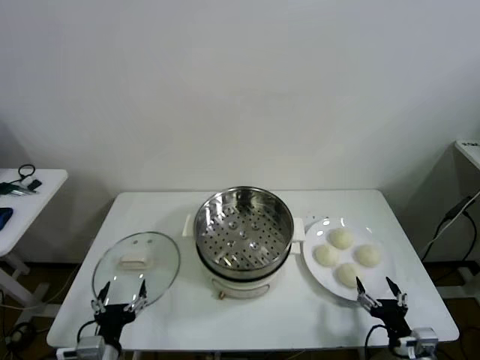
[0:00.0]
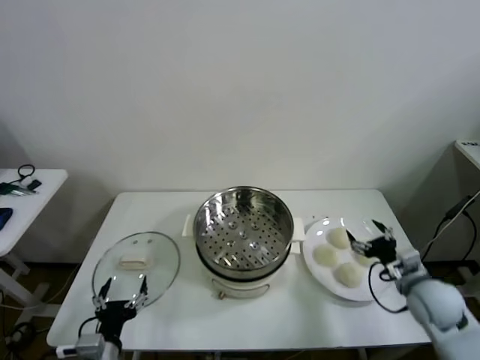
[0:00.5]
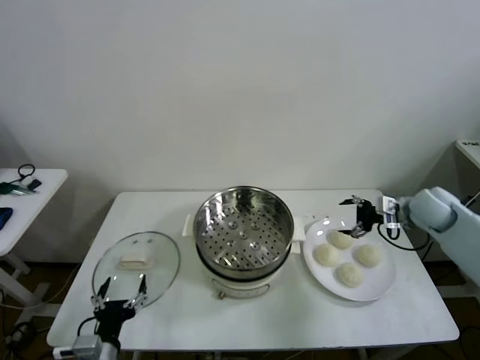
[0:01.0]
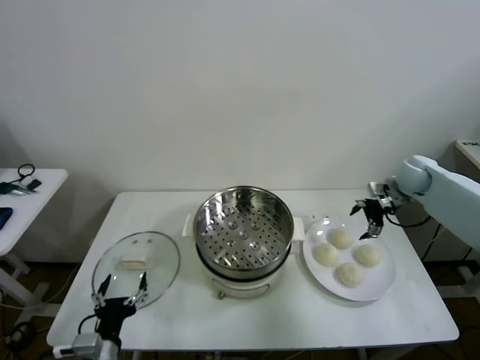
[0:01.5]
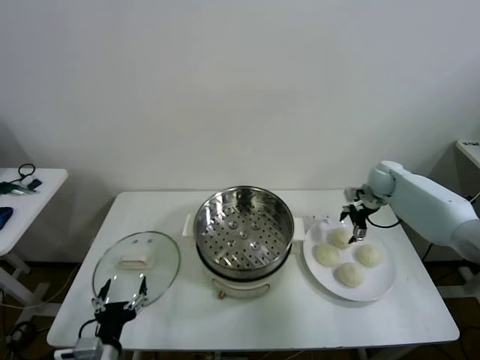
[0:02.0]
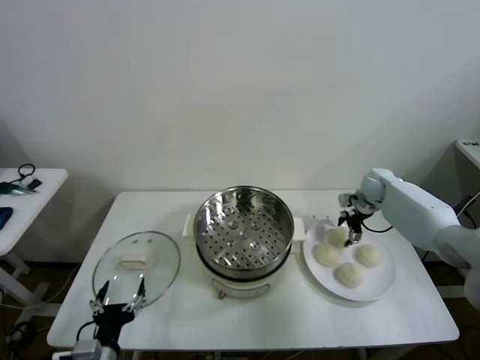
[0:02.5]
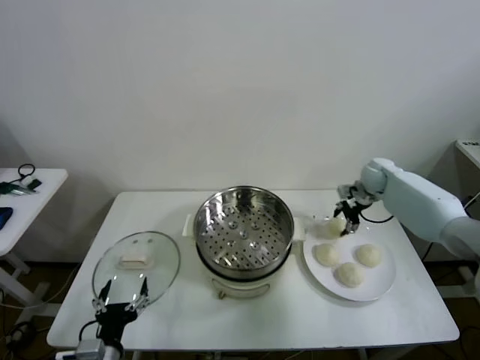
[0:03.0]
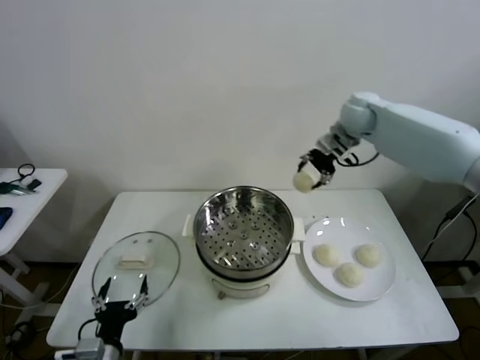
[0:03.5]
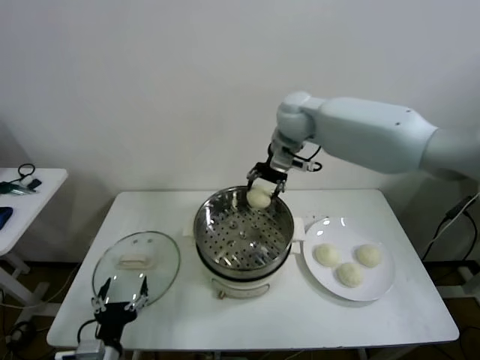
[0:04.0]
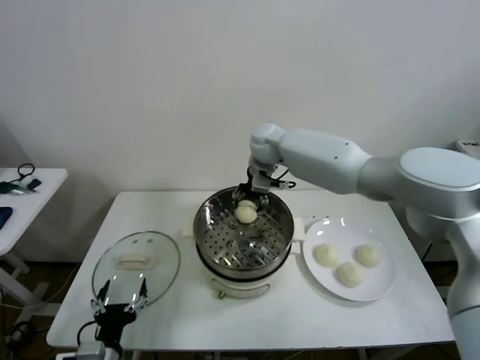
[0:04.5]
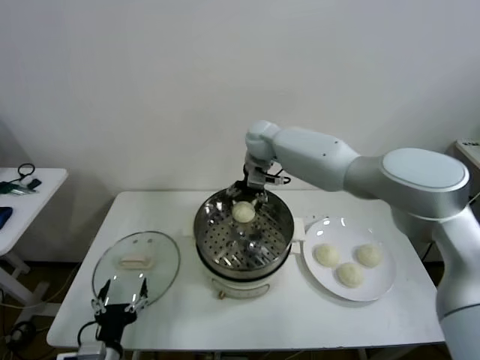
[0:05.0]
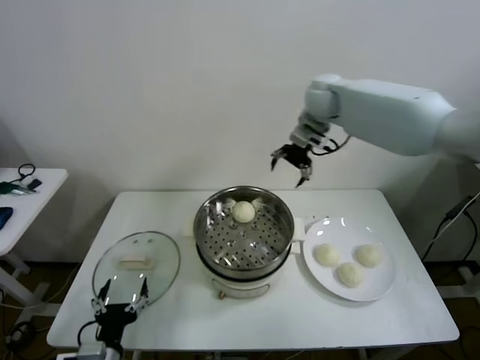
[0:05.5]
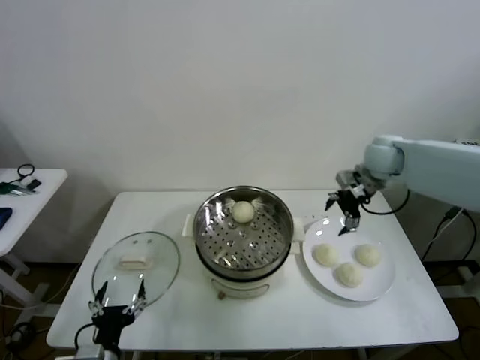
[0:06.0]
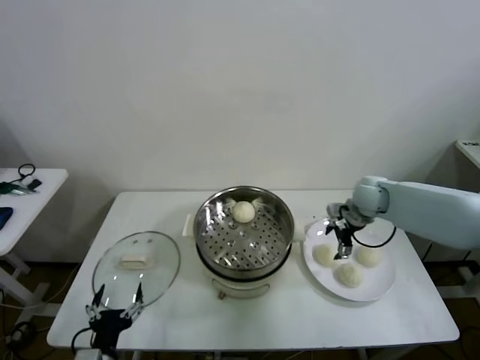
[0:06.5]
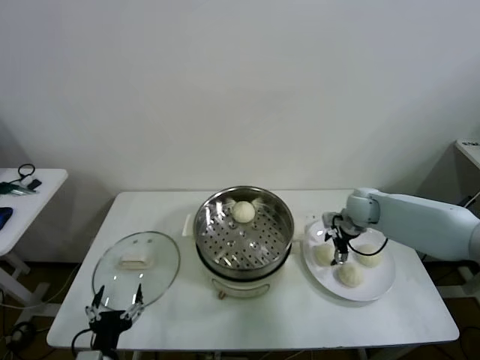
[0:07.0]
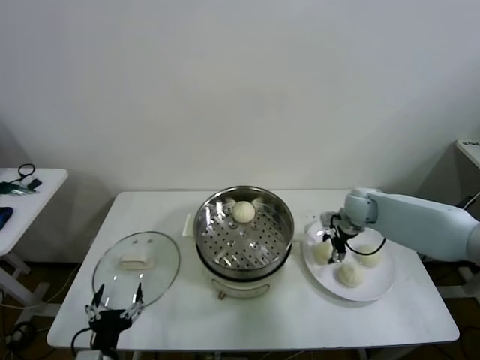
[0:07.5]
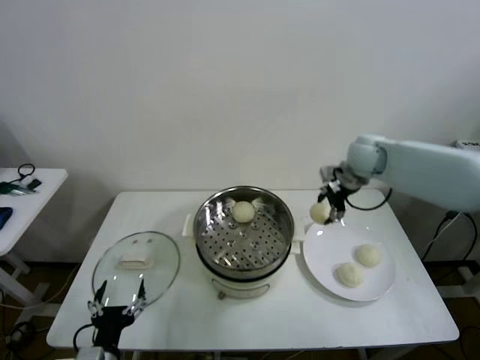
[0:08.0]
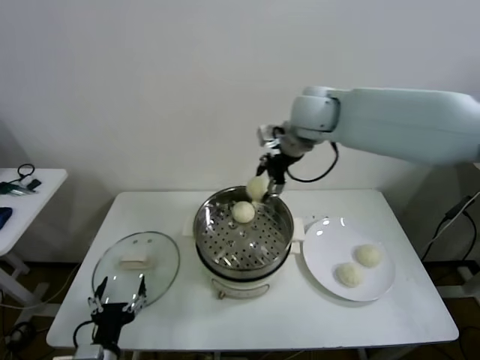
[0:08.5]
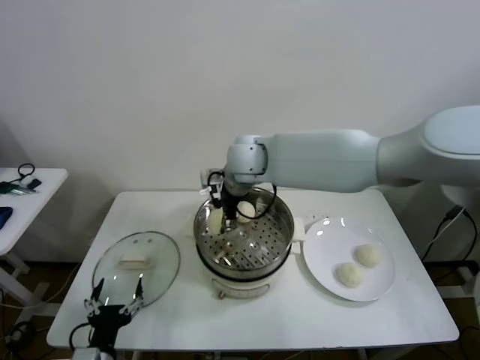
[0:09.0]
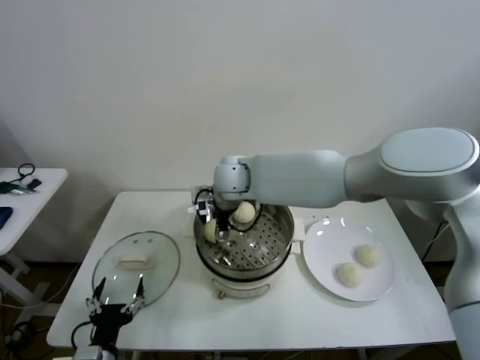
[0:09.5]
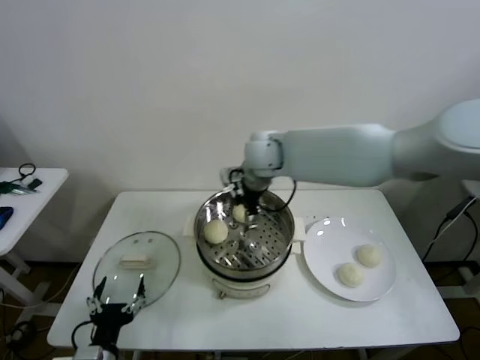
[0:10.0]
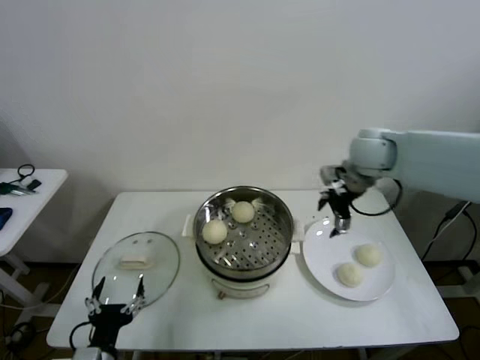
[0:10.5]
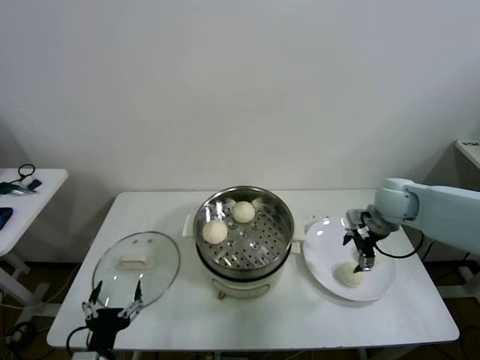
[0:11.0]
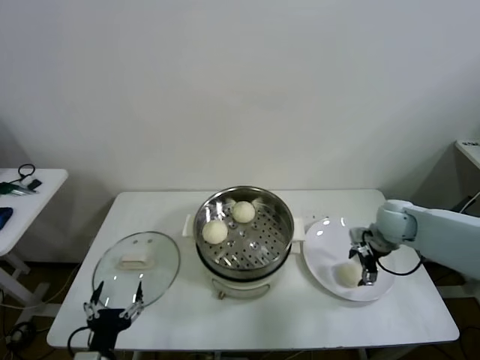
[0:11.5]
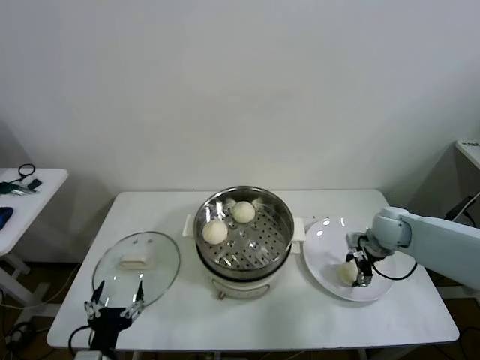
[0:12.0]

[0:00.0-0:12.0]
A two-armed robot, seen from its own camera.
Task of the whole recording: take steamed baozi put them in steamer then cover it.
Step, 0:00.0 to 0:02.5: Grasp the baozi in the plate with right gripper.
Step, 0:03.0 to 0:05.0: Place the baozi on the steamer with right gripper.
Step, 0:05.5 to 0:07.0: Grasp the baozi in the plate with right gripper.
Step, 0:07.5 to 0:09.5: Place the baozi on the steamer with right gripper.
0:02.0 to 0:04.0: The right gripper travels to the left and upward by approximately 35 cm, and closes.
0:04.0 to 0:06.0: The right gripper goes about 25 cm to the right, and opens its fingers.
0:06.0 to 0:08.0: The right gripper is displaced to the left by roughly 5 cm, goes downward and returns, about 15 cm each way, and closes.
0:08.0 to 0:10.0: The right gripper heads to the left, covering roughly 20 cm, and opens up.
0:10.0 to 0:12.0: The right gripper travels to the right and downward by some 35 cm, and closes its fingers.

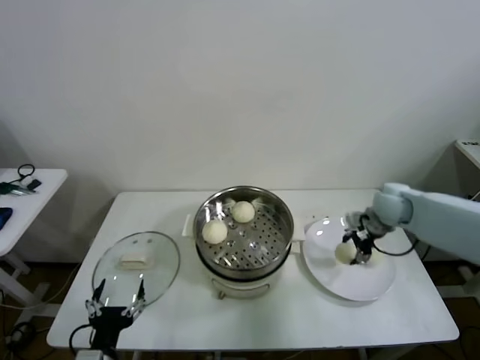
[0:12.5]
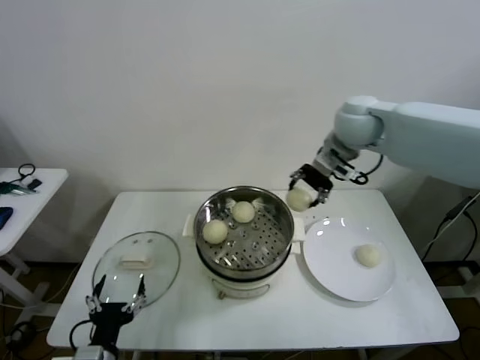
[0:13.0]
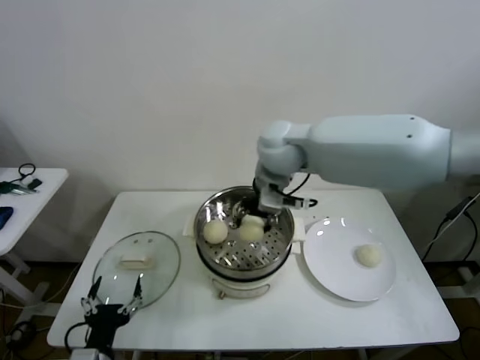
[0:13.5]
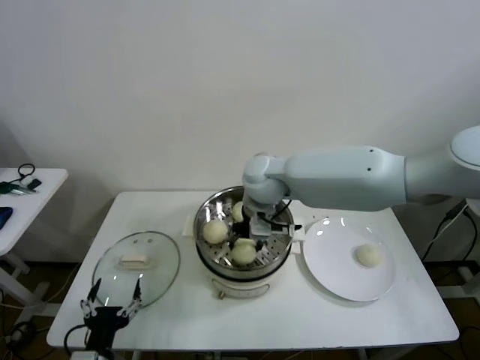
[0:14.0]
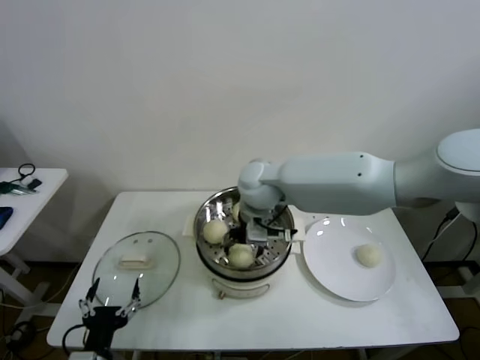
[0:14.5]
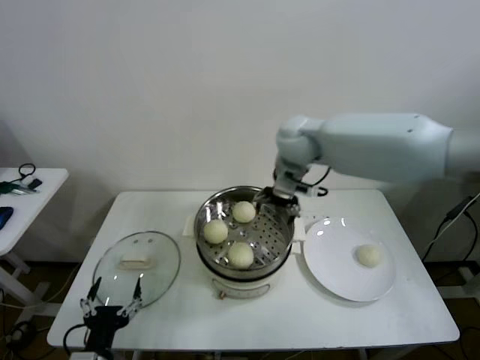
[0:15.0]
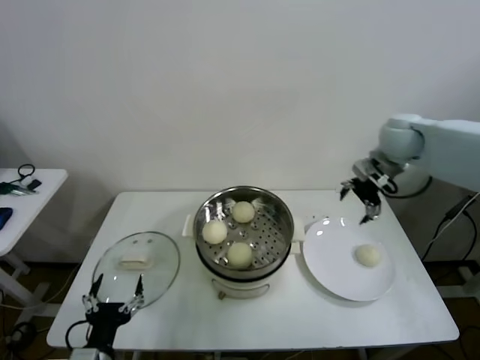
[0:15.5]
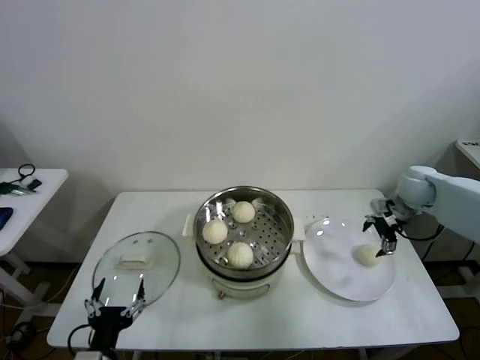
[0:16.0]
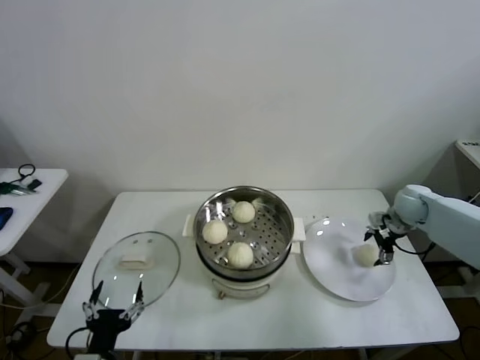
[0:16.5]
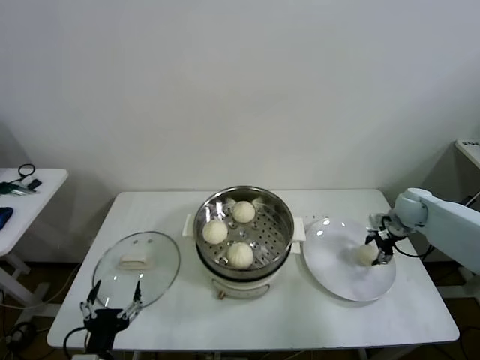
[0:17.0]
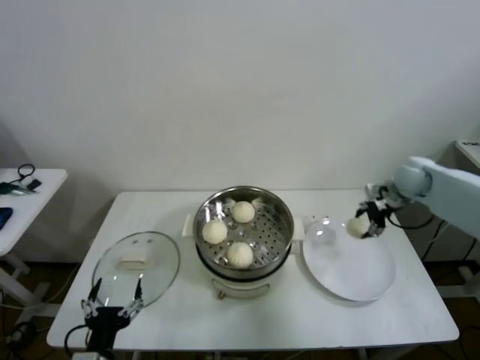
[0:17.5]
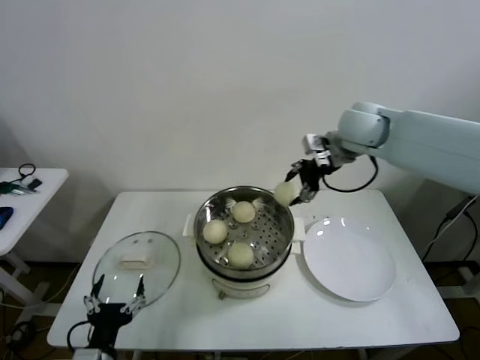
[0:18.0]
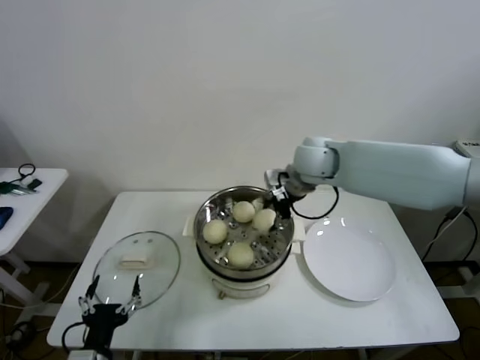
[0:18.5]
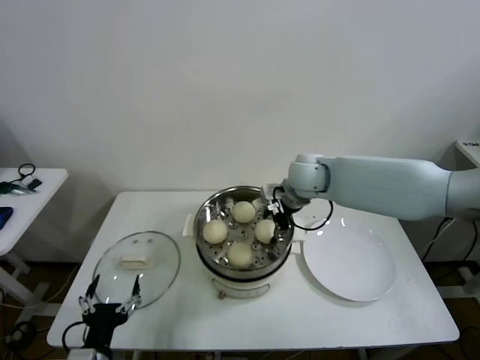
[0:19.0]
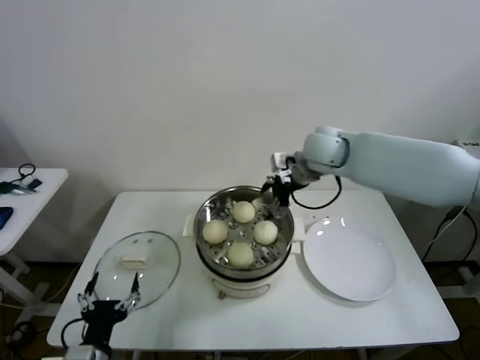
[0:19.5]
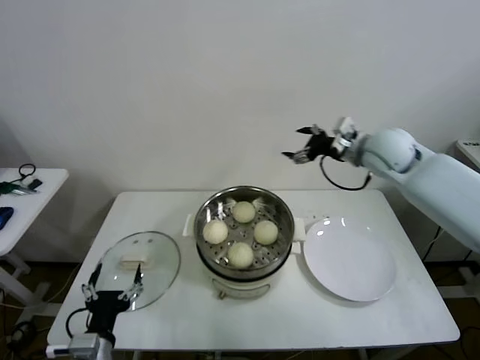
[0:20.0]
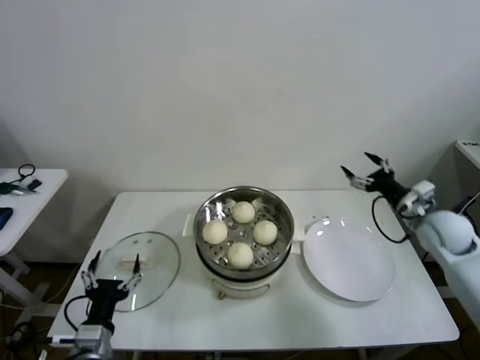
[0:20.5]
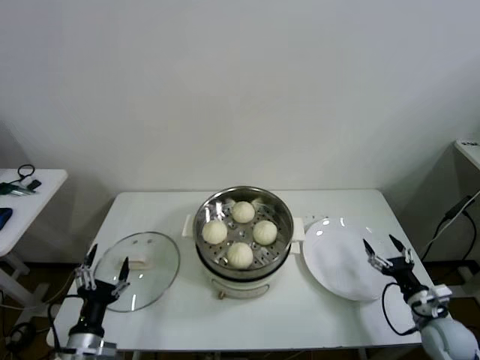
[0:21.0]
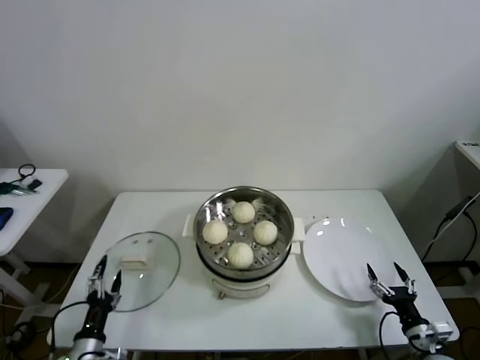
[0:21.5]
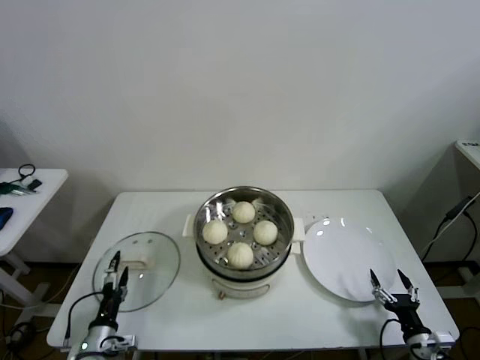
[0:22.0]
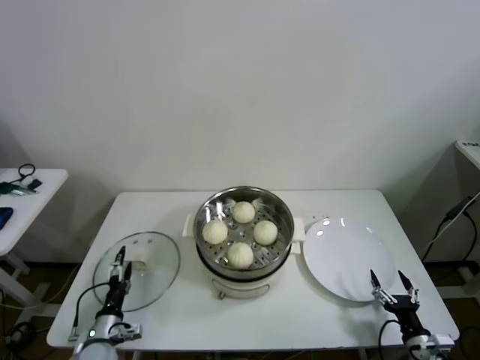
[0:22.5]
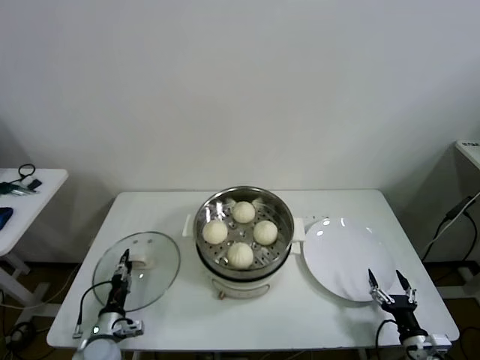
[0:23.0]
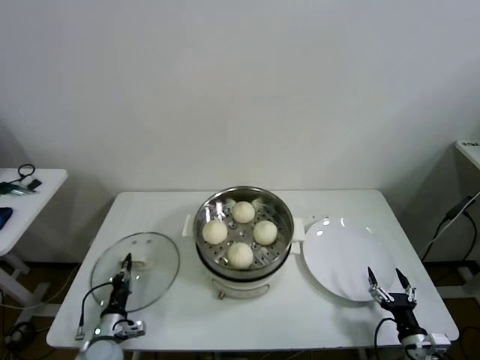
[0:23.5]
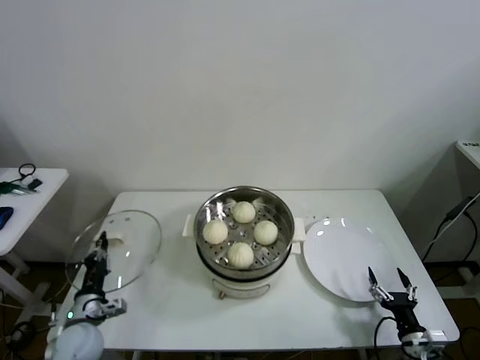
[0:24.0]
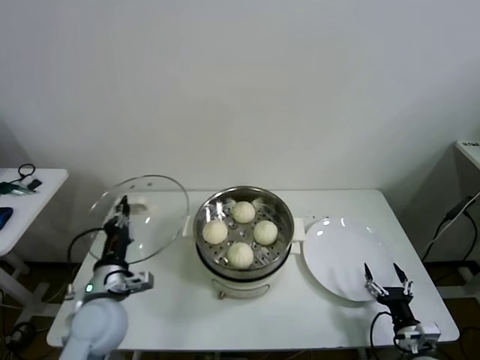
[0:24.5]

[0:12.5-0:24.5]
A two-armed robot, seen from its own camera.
Task of the whole recording: take steamed baozi put them in steamer then cover it.
Step, 0:12.5 to 0:14.5: Place the baozi on the steamer with right gripper.
Step, 0:15.0 to 0:17.0: Grasp the baozi in the plate with right gripper.
Step, 0:17.5 to 0:19.0: Place the baozi on the steamer with right gripper.
Step, 0:19.5 to 0:23.5: Grasp the pot lid with left gripper.
0:12.5 to 0:14.5: The right gripper travels to the left by roughly 30 cm, and opens its fingers.
0:14.5 to 0:16.5: The right gripper moves to the right, roughly 40 cm.
0:16.5 to 0:18.5: The right gripper goes roughly 35 cm to the left and upward, and closes up.
0:18.5 to 0:20.5: The right gripper travels to the right and downward by about 30 cm, and opens.
0:20.5 to 0:22.5: The left gripper moves downward, forward and to the left, roughly 20 cm. Meanwhile the right gripper moves backward and downward, about 35 cm.
0:22.5 to 0:24.5: The left gripper is displaced upward by about 20 cm, and closes up.

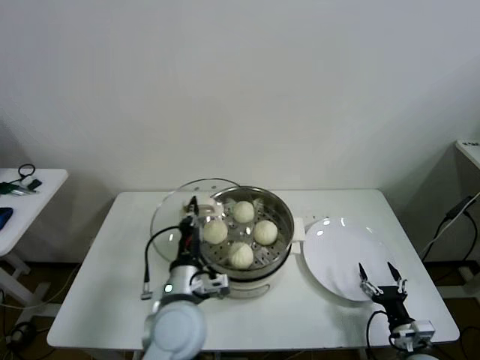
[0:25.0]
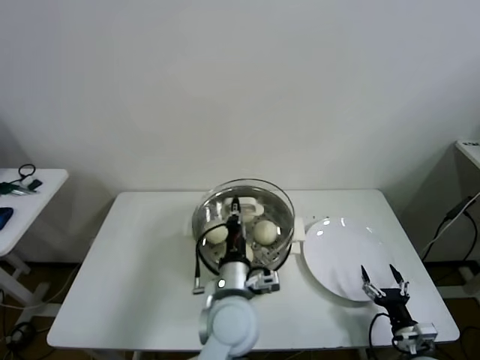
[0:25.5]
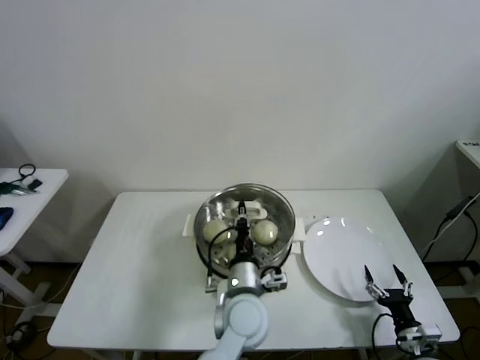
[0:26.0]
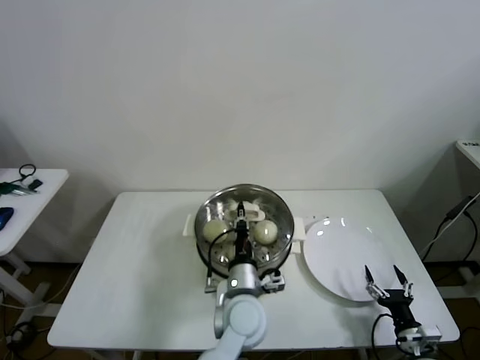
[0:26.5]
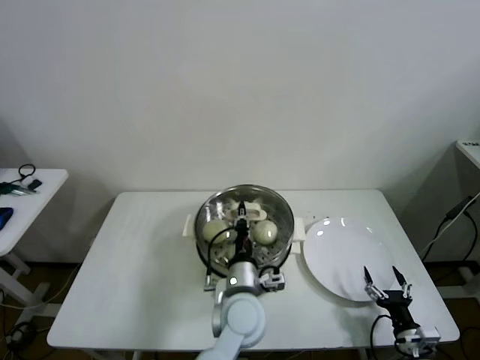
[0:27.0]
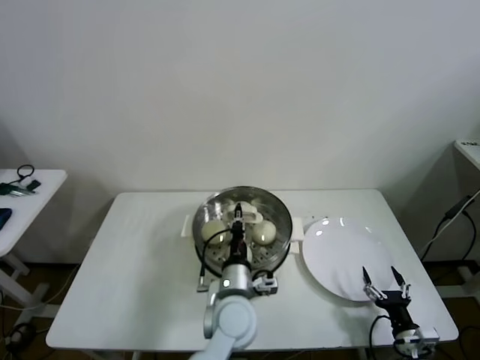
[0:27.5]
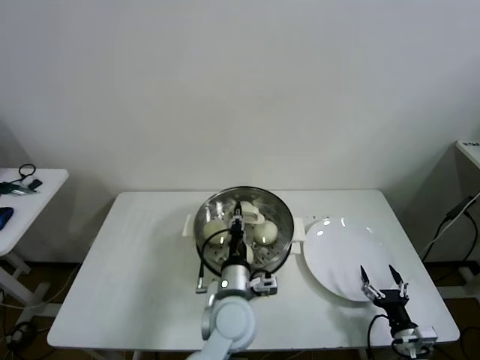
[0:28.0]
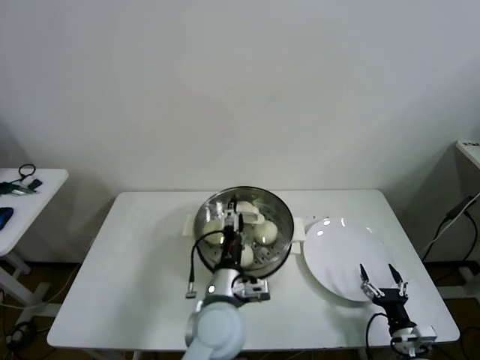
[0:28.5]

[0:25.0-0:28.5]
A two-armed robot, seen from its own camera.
Task of the whole recording: take steamed baozi put them in steamer then cover it.
Step, 0:25.0 to 0:28.5: Place the pot lid on the steamer with left gripper.
0:25.0 to 0:27.0: The left gripper travels to the right by approximately 15 cm.
0:27.0 to 0:28.5: The left gripper opens.
